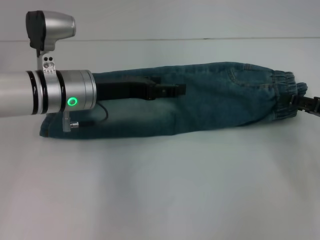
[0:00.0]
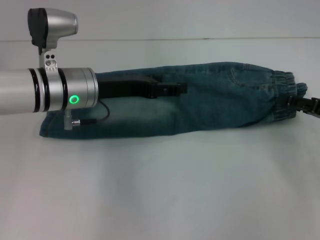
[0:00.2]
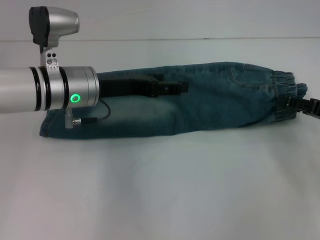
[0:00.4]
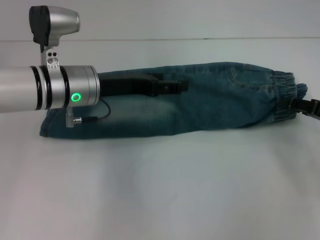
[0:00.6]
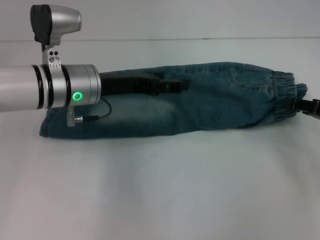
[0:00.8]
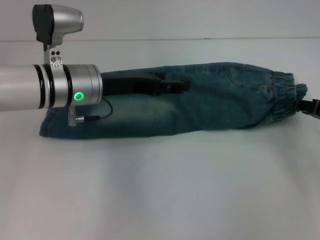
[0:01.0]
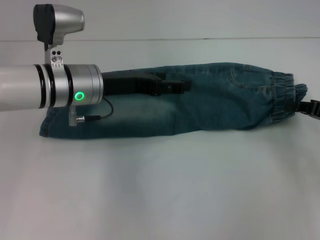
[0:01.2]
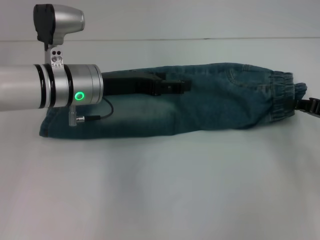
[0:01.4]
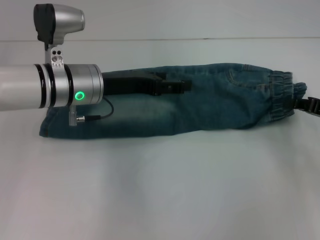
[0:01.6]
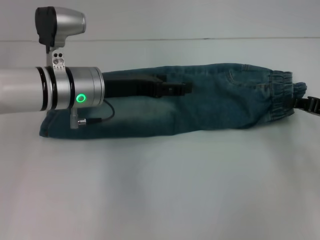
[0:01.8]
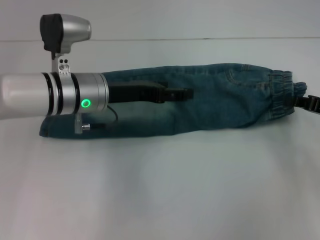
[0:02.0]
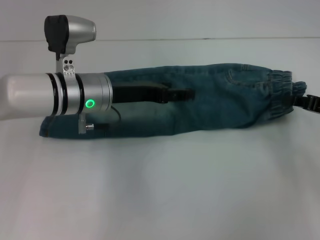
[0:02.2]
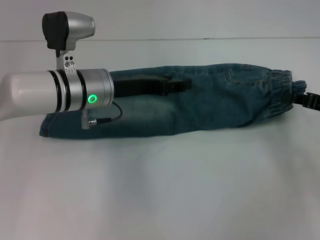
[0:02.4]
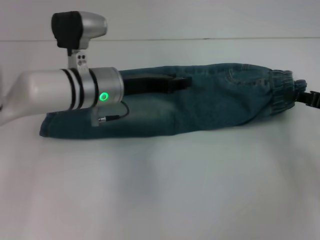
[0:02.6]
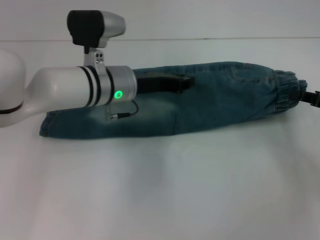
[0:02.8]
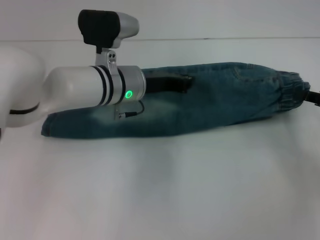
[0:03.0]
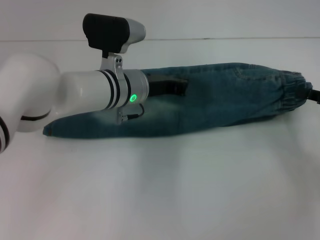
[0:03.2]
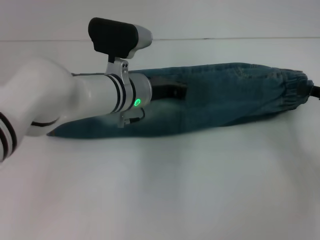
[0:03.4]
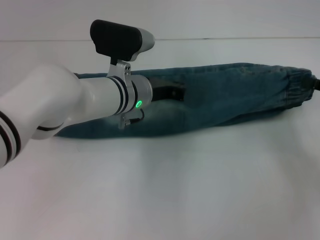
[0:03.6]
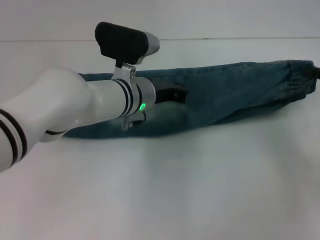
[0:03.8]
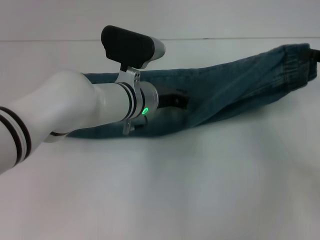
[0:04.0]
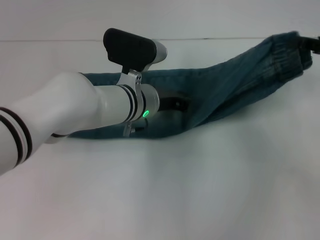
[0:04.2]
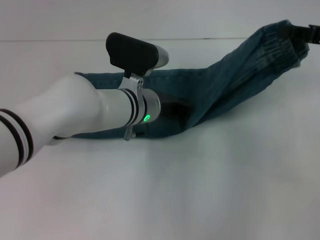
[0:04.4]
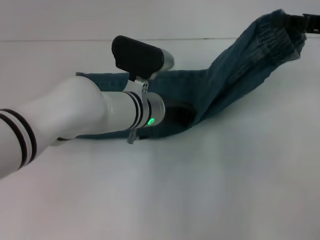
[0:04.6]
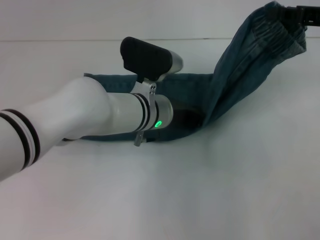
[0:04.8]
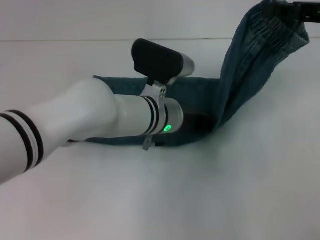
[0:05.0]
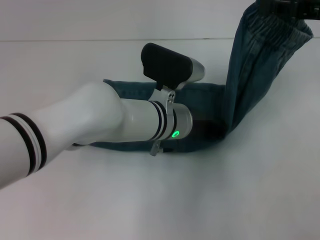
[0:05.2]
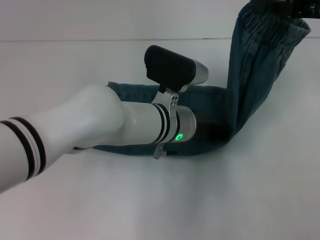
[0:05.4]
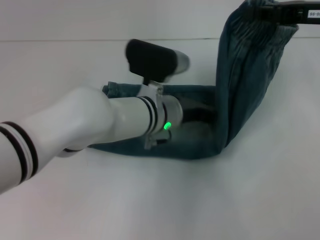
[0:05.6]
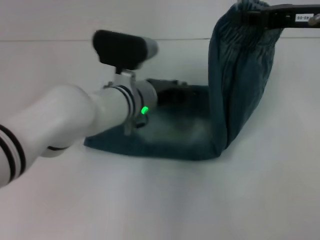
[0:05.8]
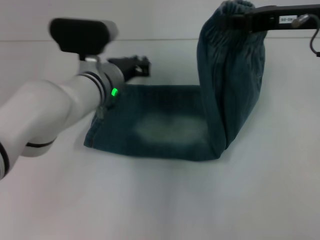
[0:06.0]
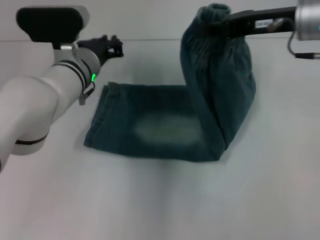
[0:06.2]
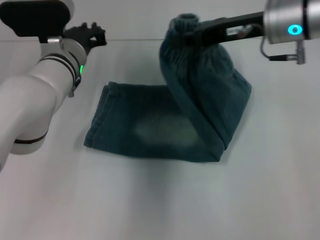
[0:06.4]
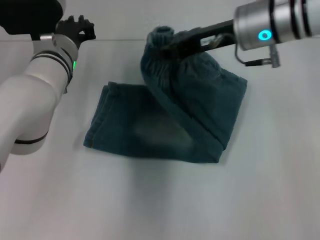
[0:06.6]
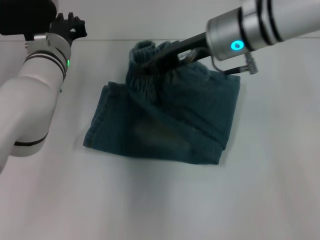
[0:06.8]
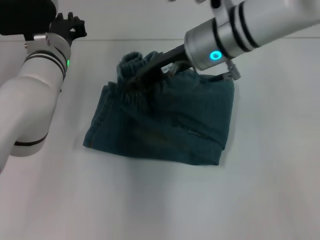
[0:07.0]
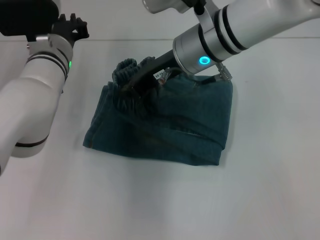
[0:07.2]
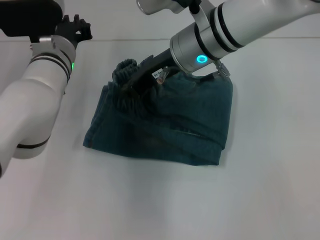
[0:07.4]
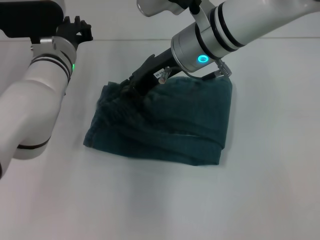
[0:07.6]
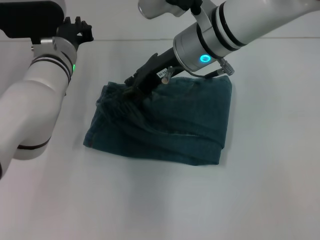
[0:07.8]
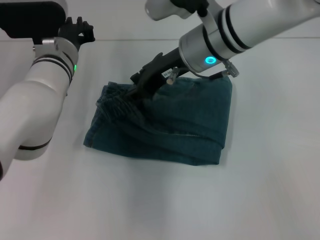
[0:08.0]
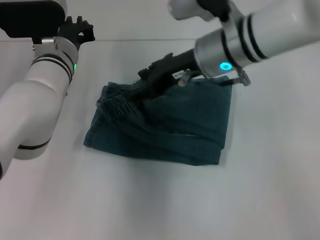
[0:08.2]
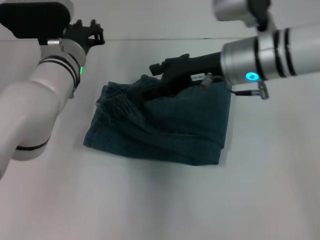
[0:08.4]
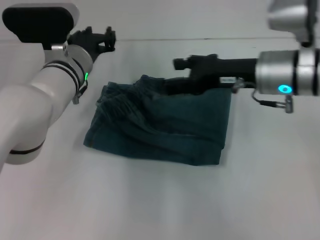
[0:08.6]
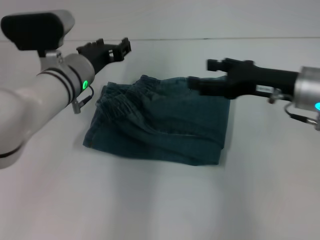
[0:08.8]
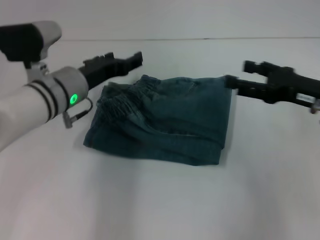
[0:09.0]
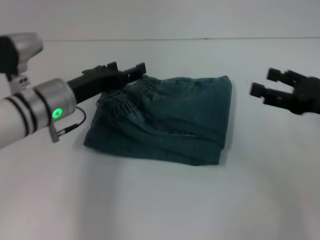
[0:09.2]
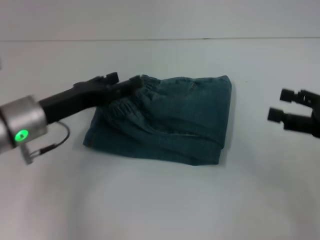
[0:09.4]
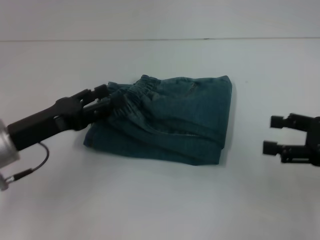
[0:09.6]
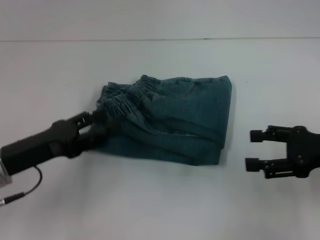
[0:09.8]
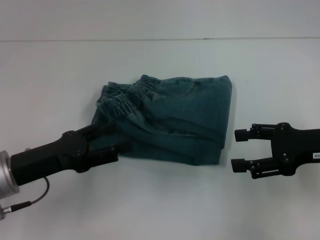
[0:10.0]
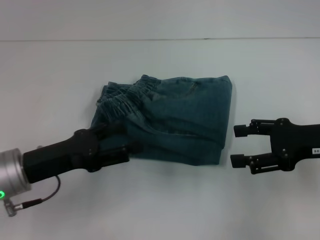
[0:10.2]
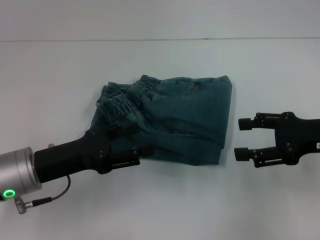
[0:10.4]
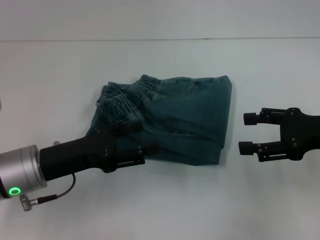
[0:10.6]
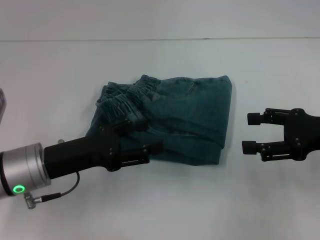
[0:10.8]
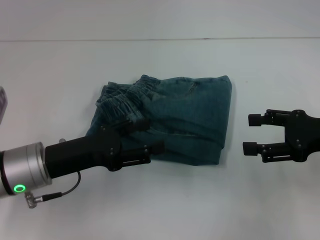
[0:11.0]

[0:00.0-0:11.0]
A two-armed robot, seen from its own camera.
Step, 0:01.6 to 0:05.6: Press the middle of the pants with your left hand.
Step, 0:05.8 to 0:07.8: Fold to the left with your right hand.
0:00.0 to 0:01.6: The right gripper closes up.
0:01.6 to 0:03.2: The left gripper is displaced to the right by approximately 5 cm, and closes.
0:03.2 to 0:04.8: The right gripper heads upward, forward and to the left, covering about 15 cm. The left gripper shifts by about 5 cm.
0:04.8 to 0:06.2: Both grippers move to the left, roughly 10 cm.
0:06.2 to 0:07.8: The right gripper goes roughly 15 cm to the left.
0:07.8 to 0:09.4: The right gripper shifts roughly 30 cm to the right and backward, and opens. The left gripper shifts approximately 10 cm backward and to the left, and opens up.
0:09.4 to 0:11.0: The left gripper moves about 5 cm.

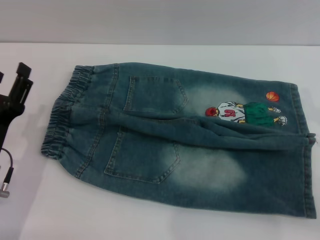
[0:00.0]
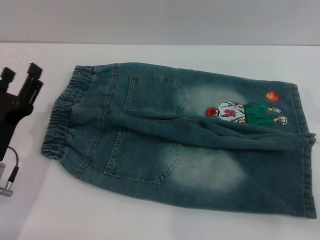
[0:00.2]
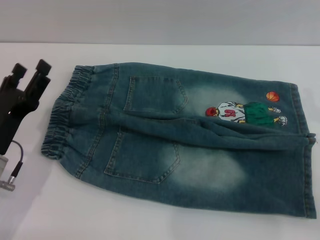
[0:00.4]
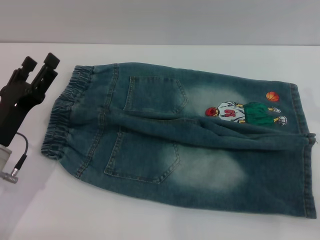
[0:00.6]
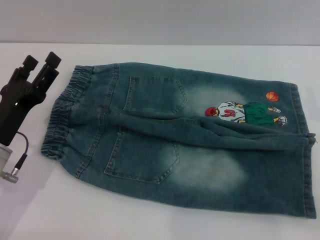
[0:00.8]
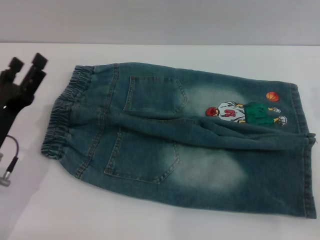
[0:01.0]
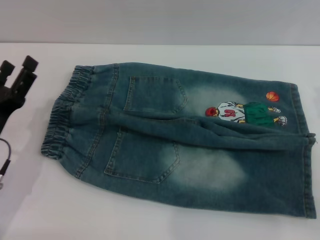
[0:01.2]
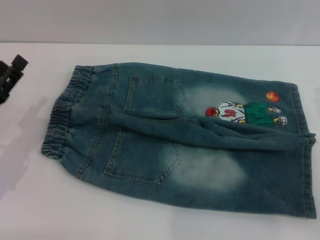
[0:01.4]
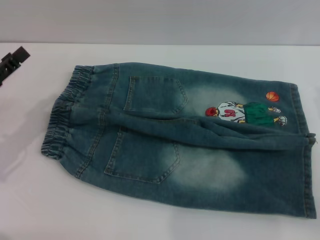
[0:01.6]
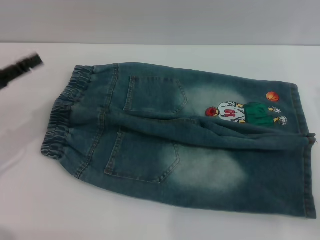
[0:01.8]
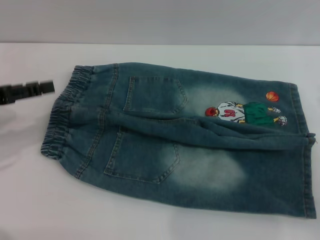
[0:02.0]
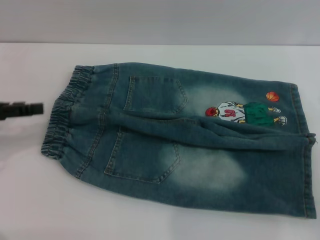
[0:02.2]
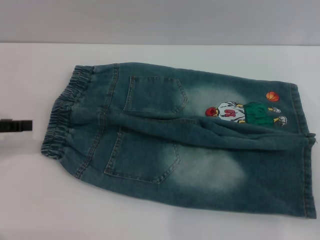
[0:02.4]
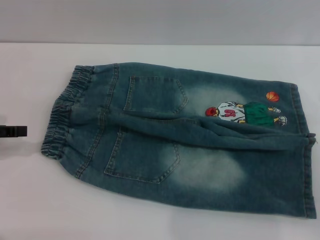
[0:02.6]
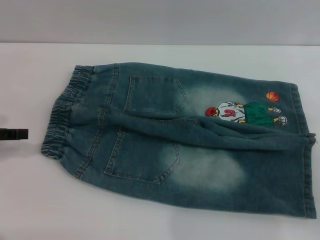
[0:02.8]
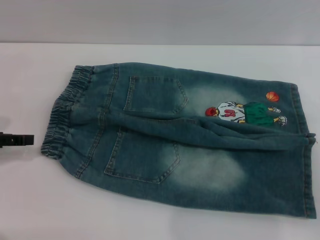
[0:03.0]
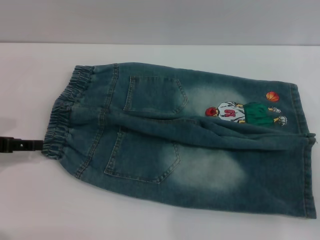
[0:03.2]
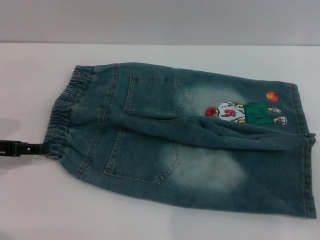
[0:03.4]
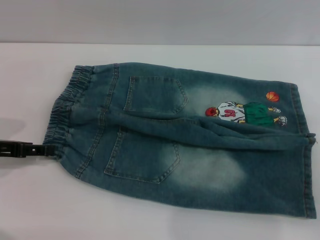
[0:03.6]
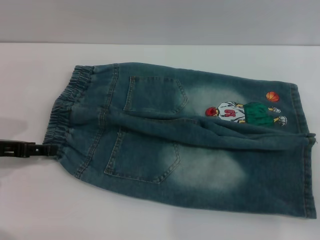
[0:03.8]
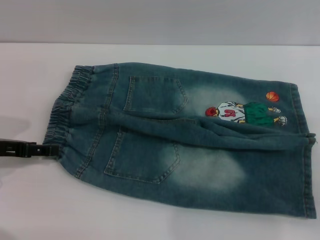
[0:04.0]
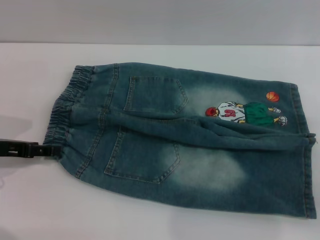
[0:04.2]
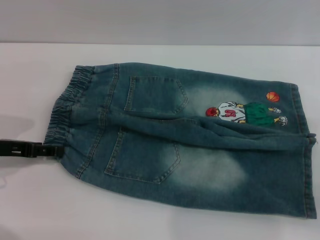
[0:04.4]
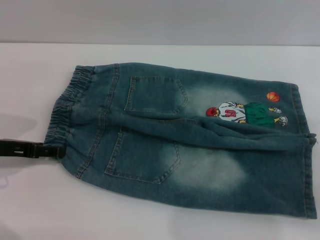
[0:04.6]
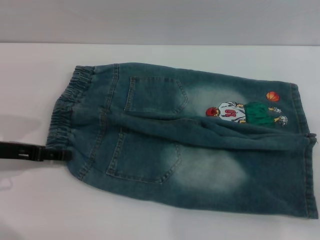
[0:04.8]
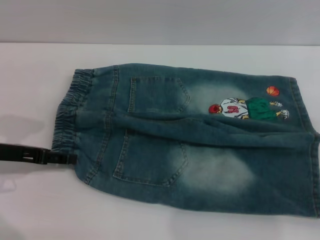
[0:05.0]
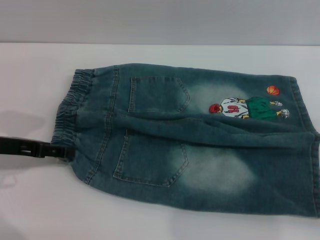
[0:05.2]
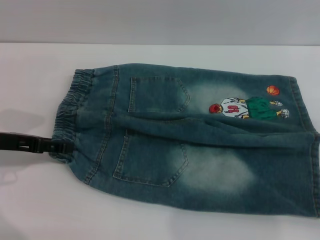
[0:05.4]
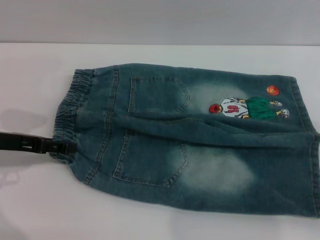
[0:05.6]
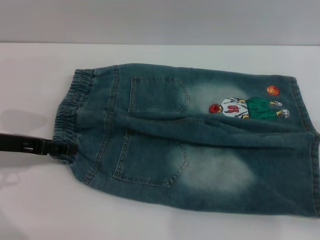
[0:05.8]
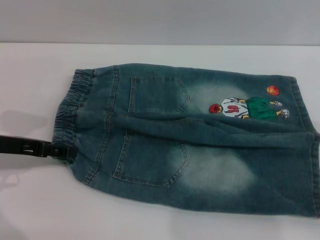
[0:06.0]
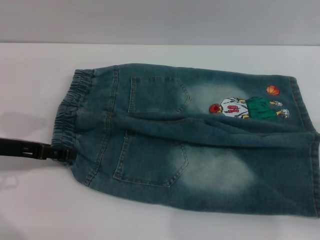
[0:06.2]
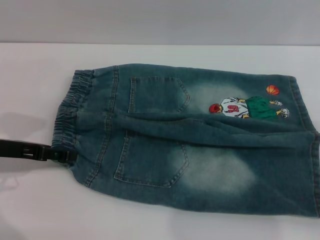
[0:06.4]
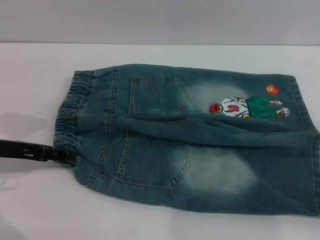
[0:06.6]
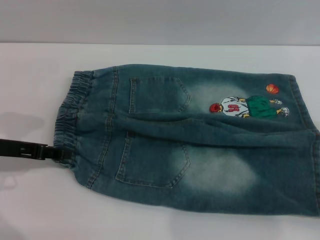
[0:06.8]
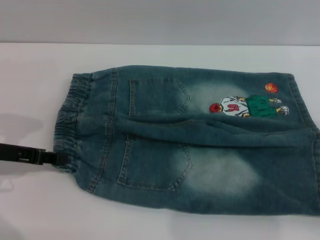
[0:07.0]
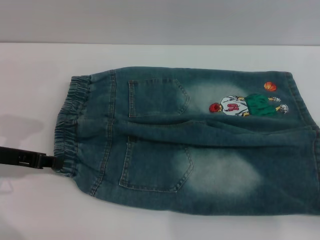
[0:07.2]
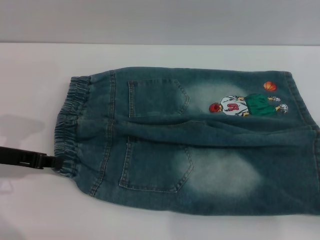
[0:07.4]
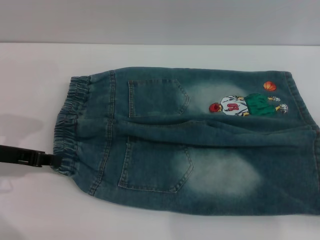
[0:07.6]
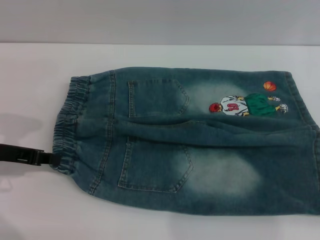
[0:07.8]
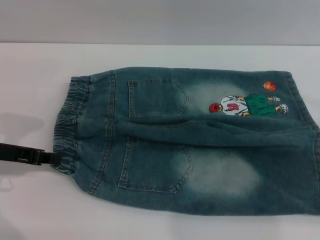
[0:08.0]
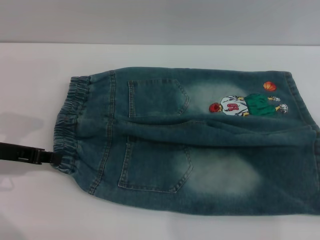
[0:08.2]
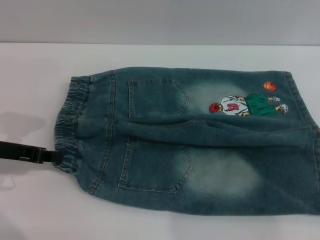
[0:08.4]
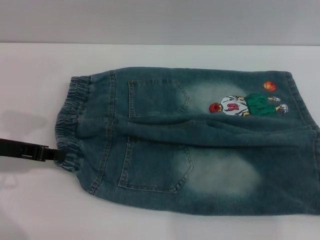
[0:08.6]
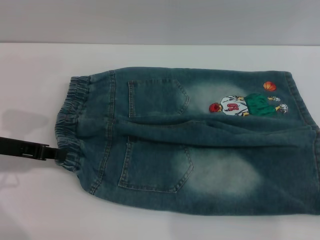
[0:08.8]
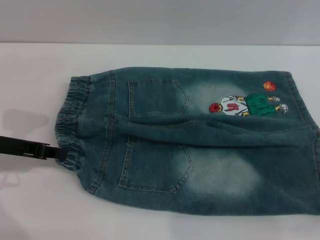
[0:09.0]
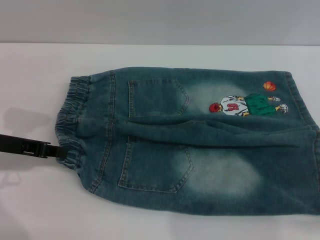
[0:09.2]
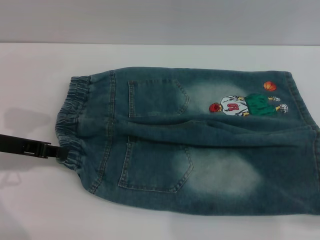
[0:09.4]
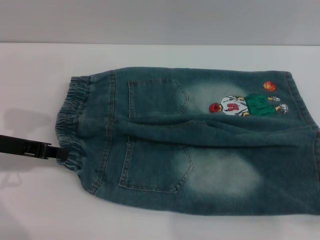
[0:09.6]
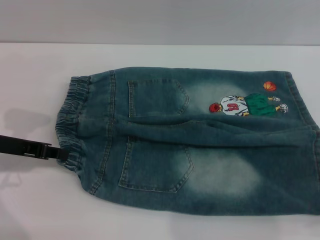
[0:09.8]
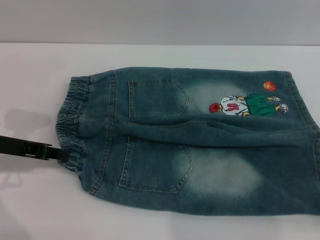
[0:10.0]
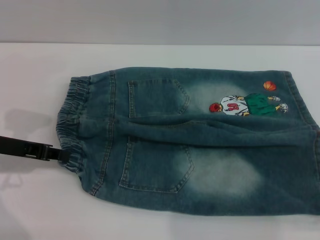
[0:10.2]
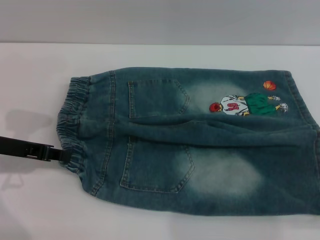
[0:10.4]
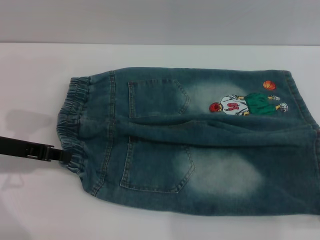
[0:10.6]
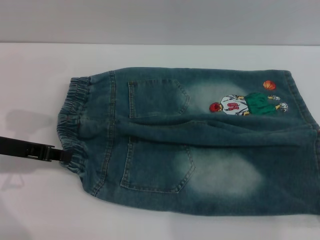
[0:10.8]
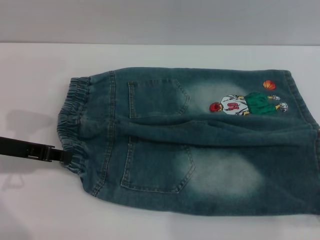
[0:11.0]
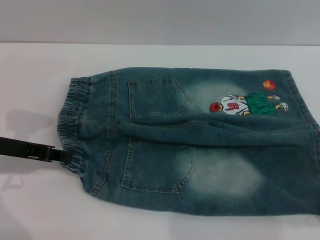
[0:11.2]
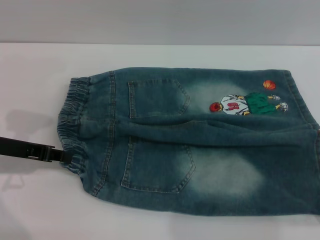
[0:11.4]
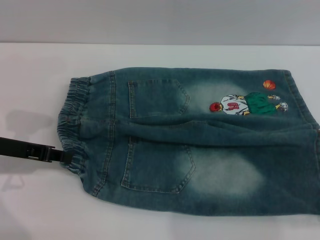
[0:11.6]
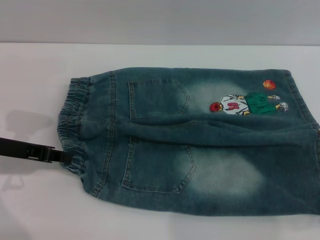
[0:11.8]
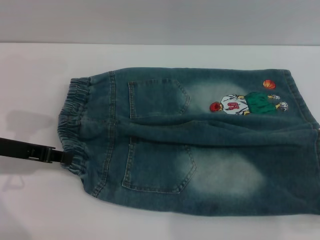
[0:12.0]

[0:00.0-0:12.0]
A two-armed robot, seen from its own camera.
0:00.0 to 0:01.6: The left gripper shifts approximately 10 cm to the left and upward.
0:03.0 to 0:04.4: The left gripper shifts by about 5 cm.
0:04.4 to 0:06.0: There are only small adjustments of the grippers.
0:06.0 to 0:07.6: The left gripper closes up.
0:10.4 to 0:12.0: Both grippers stay put.
